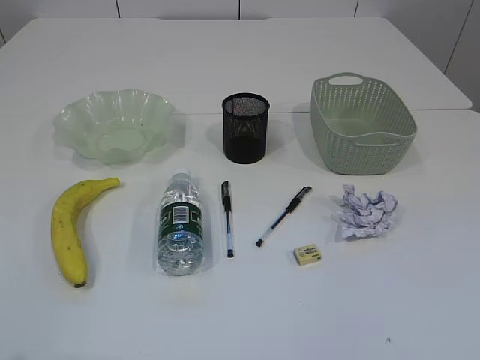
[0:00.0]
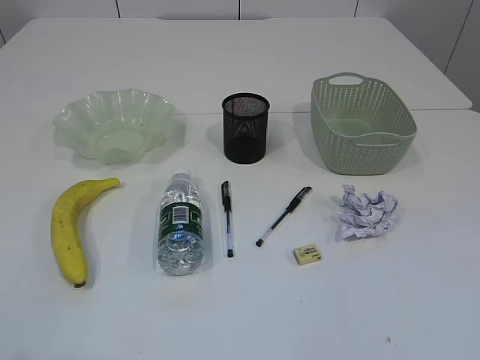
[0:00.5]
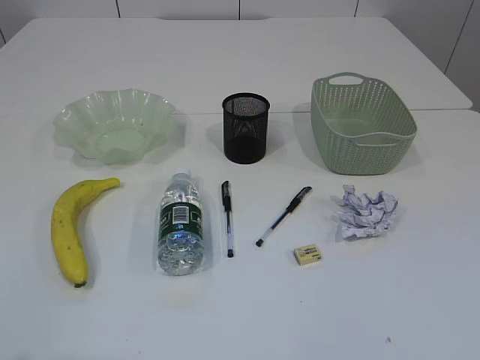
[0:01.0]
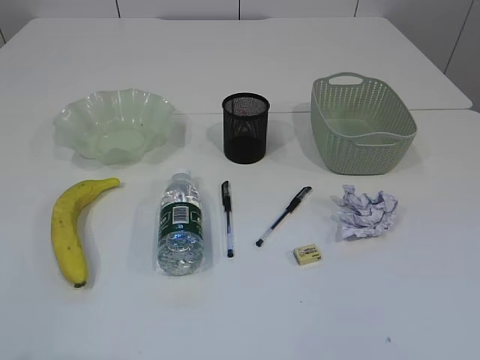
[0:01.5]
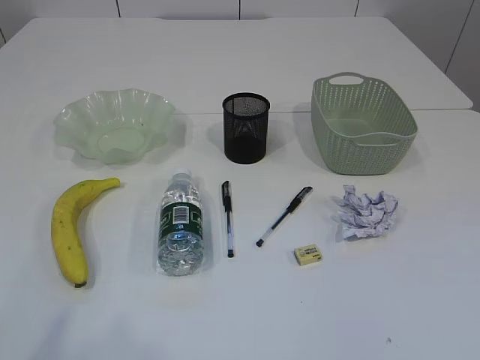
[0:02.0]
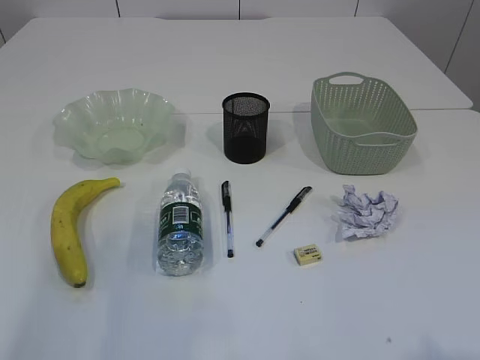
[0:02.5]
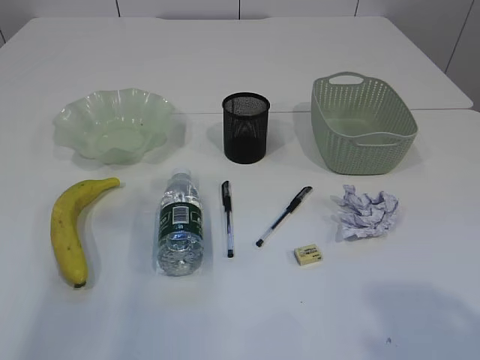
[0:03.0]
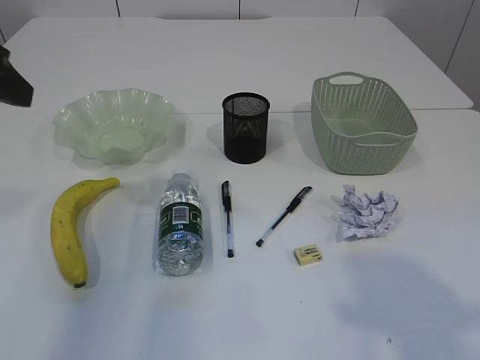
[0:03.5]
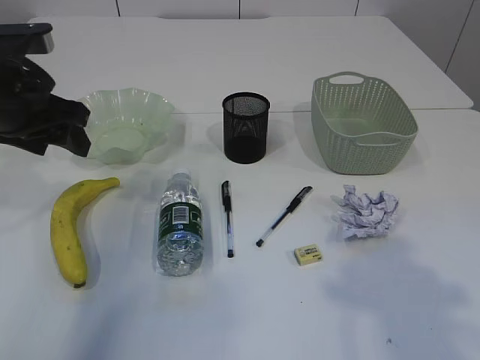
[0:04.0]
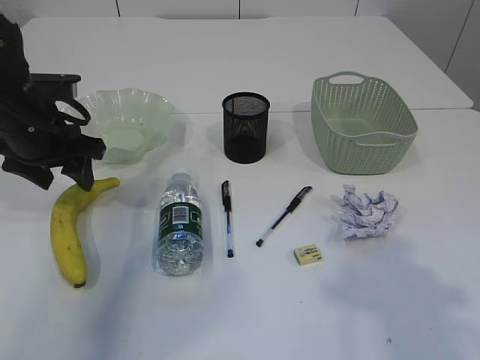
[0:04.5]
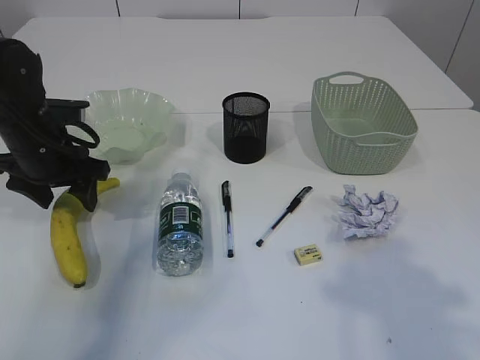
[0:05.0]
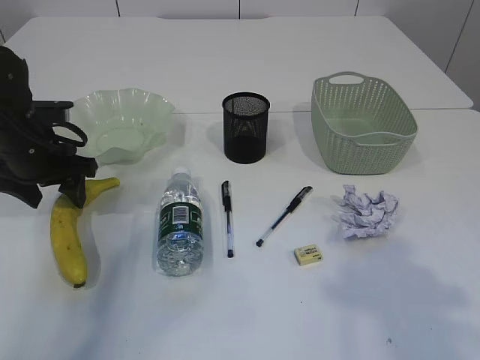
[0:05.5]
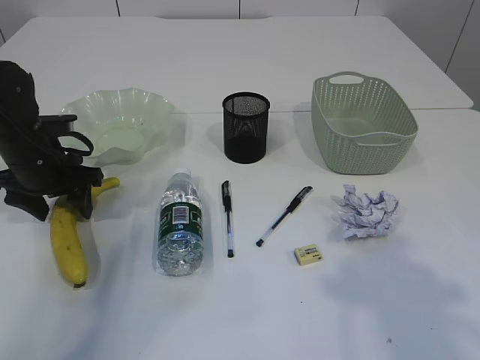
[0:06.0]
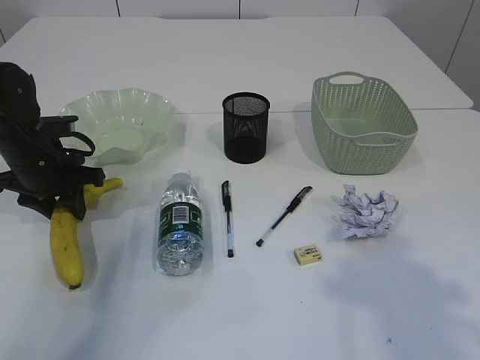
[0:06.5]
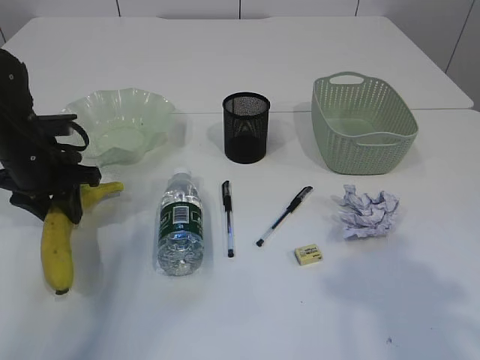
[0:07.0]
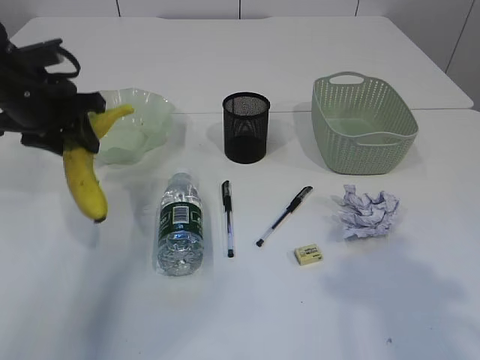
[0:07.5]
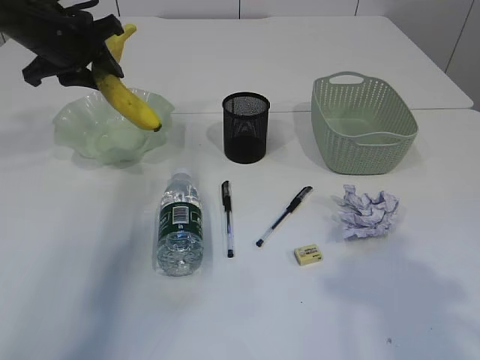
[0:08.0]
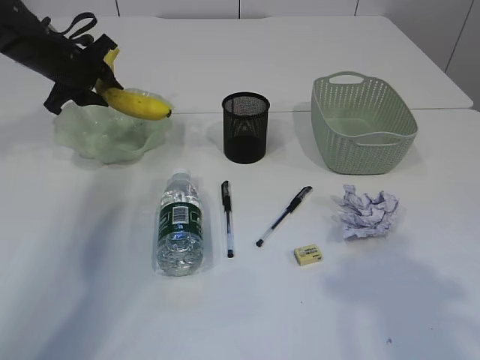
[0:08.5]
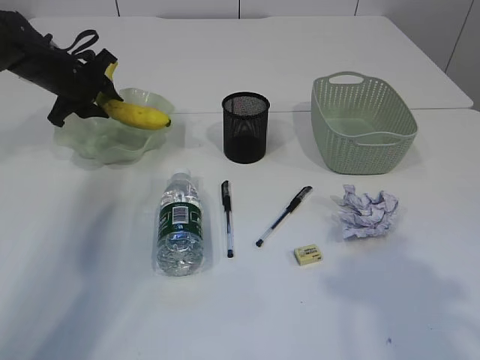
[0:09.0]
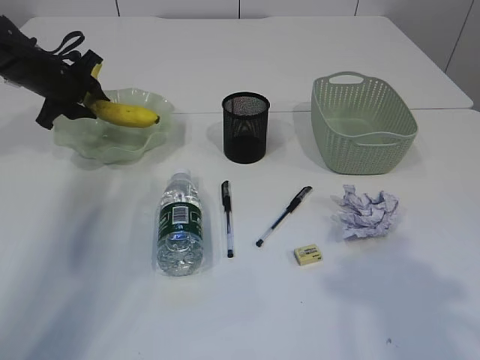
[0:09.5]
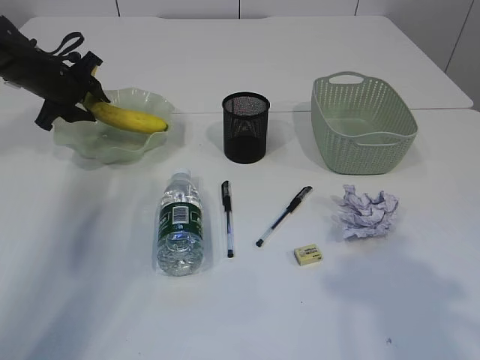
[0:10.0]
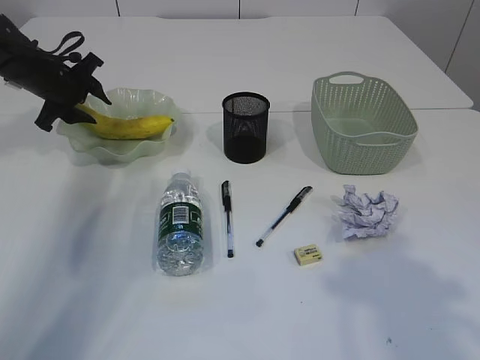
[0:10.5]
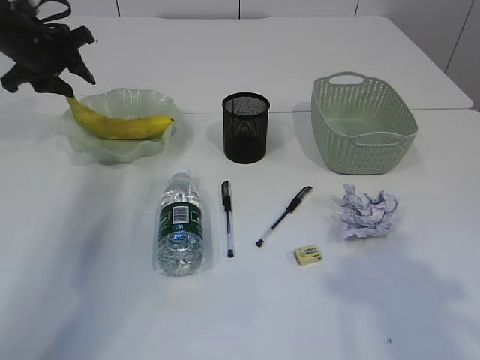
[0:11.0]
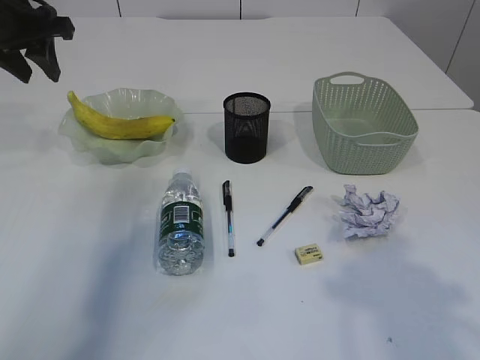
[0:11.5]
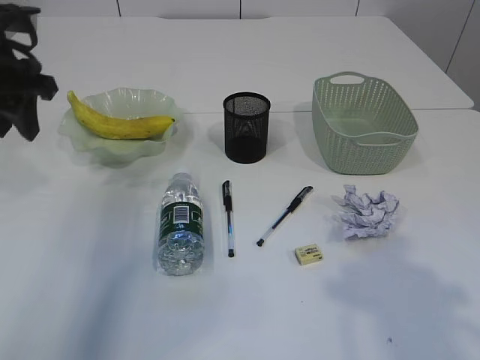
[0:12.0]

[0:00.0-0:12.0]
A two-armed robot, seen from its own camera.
Step, 0:07.5 to 0:11.0: Place the banana in the plate.
0:02.0 to 0:04.0: The right gripper travels forward and upward by roughly 15 cm; the left gripper is displaced forward by about 35 cm.
0:04.0 to 0:06.0: The left gripper heads downward and forward, covering roughly 15 cm.
0:06.0 to 0:08.0: The left gripper goes some 15 cm upward and forward, and closes.
0:08.0 to 0:10.0: The left gripper is displaced downward, forward and to the left by approximately 15 cm.
0:10.0 to 0:12.0: The left gripper heads backward and upward, covering approximately 20 cm.

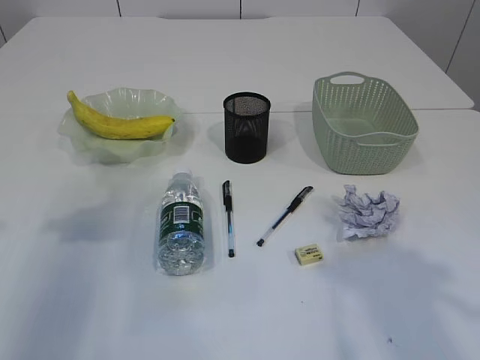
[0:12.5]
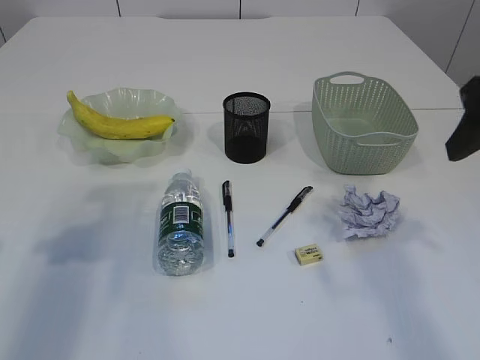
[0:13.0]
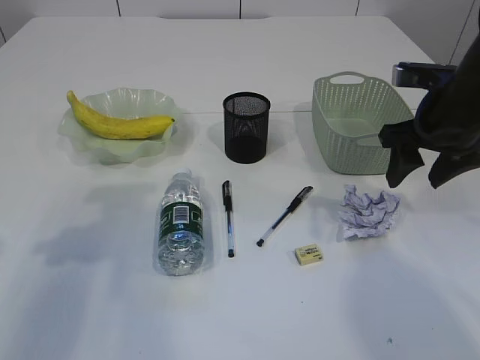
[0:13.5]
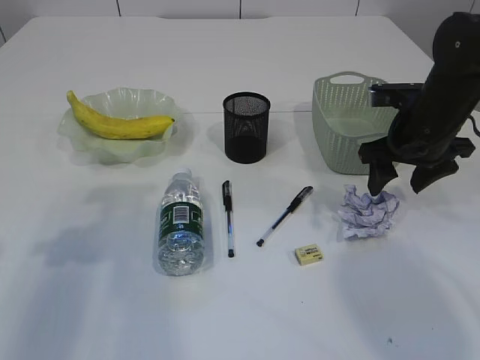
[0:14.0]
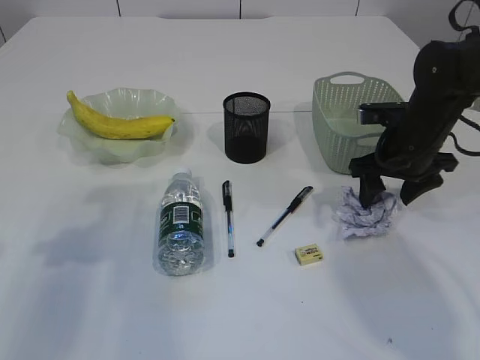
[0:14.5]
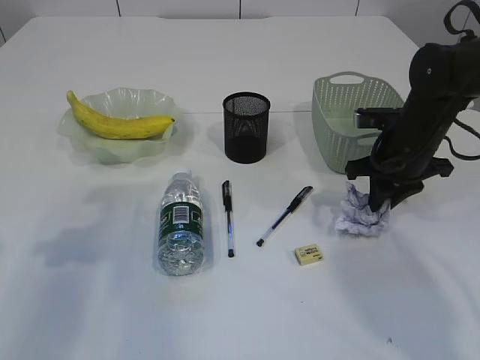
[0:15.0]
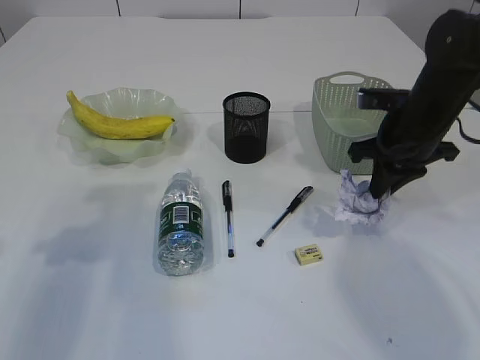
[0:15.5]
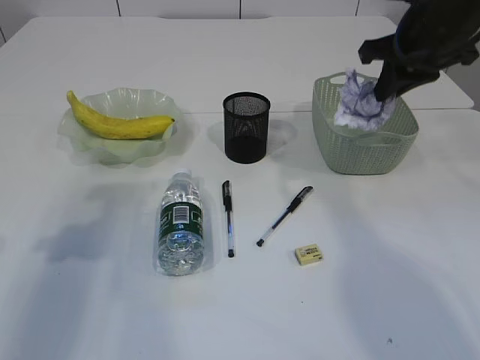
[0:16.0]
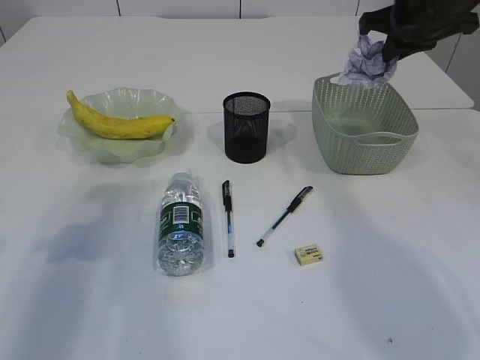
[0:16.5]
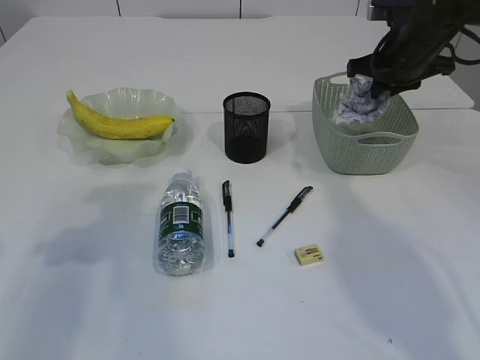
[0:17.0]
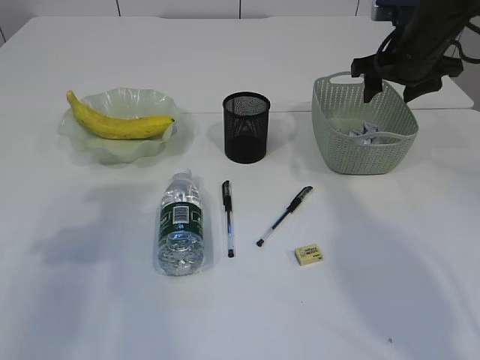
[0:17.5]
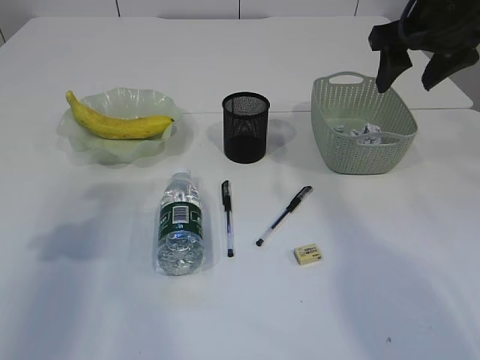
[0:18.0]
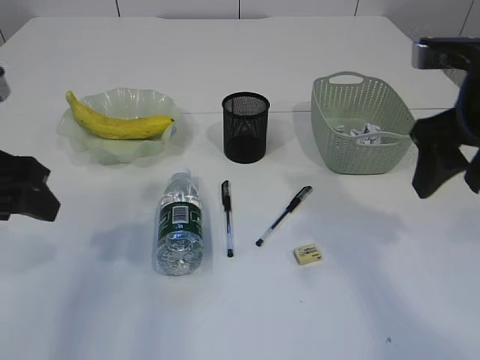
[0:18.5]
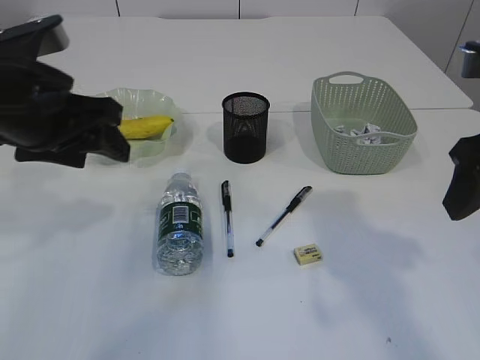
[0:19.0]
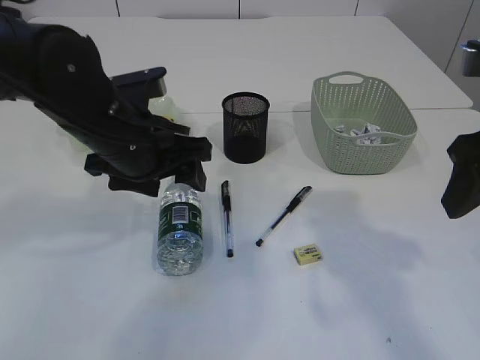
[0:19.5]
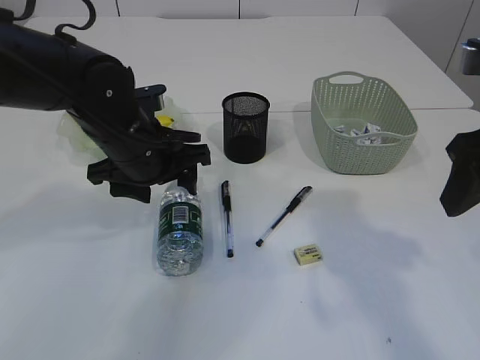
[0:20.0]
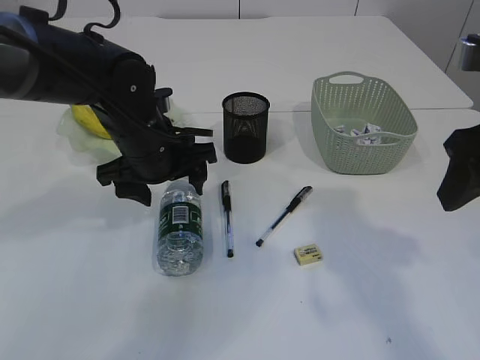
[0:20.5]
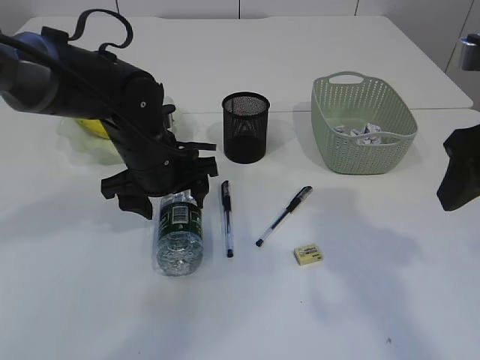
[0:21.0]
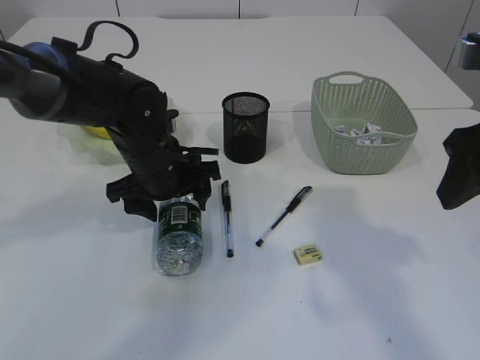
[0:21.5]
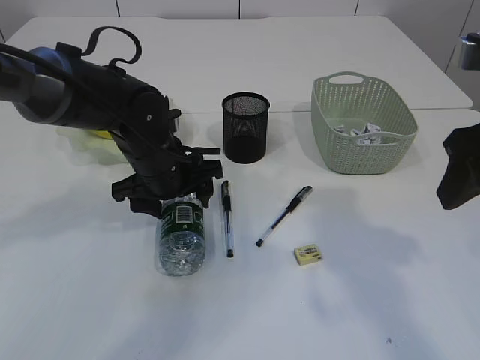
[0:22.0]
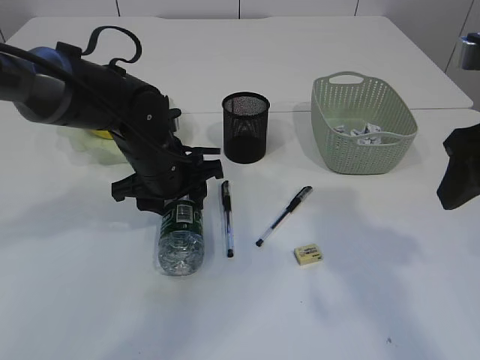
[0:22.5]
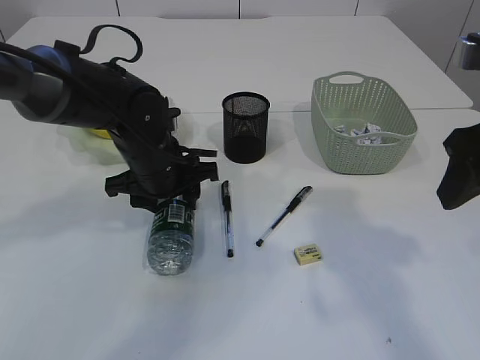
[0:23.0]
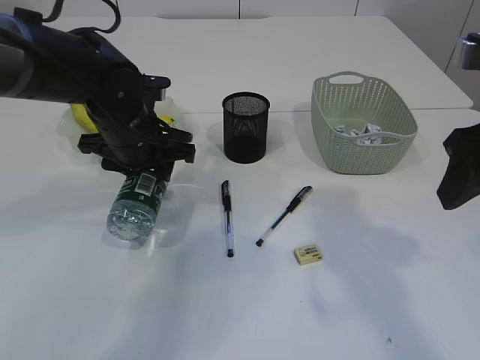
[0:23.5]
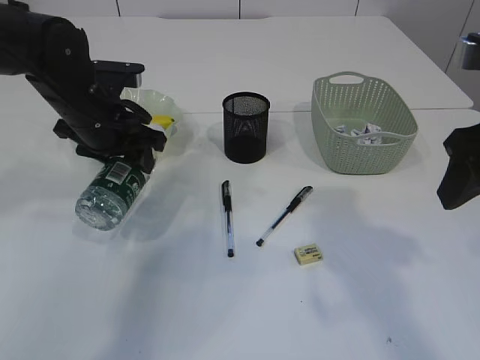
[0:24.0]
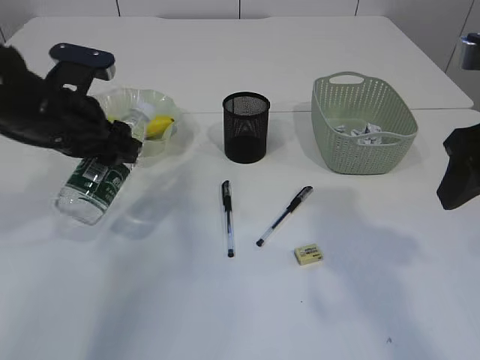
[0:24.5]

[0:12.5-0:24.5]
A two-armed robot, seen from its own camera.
Step, 0:12.5 to 0:15.5: Pick up the waste paper.
Step, 0:16.0 to 0:17.5: Place the waste paper in the basket.
Step, 0:18.0 to 0:23.5: Pick up the bottle with the left arm.
0:12.5 to 0:14.5: The right gripper heads forward and downward, covering about 30 cm.
0:14.5 to 0:16.5: The right gripper goes roughly 15 cm upward, and closes its fingers.
0:16.5 to 0:18.5: The right gripper goes approximately 15 cm backward, and opens up, while the left gripper shifts approximately 5 cm to the right.
0:18.5 to 0:20.5: The right gripper shifts by some 5 cm, while the left gripper goes about 20 cm to the right, forward and downward, and opens up.
0:20.5 to 0:22.5: The left gripper closes up.
0:22.5 to 0:24.5: The left gripper moves to the left and upward, roughly 10 cm.

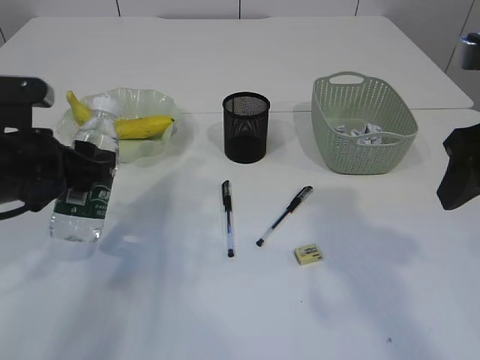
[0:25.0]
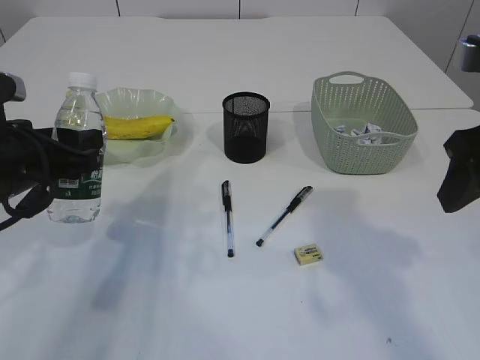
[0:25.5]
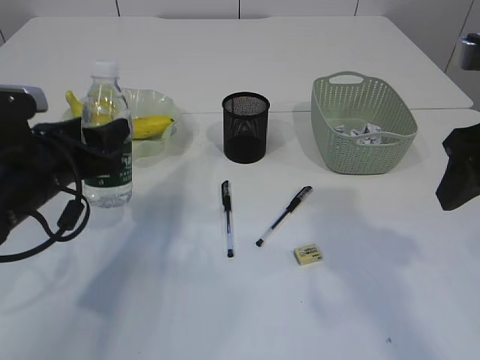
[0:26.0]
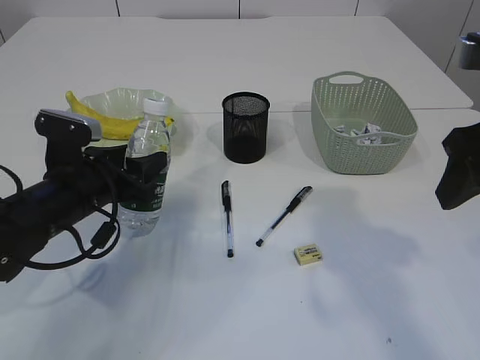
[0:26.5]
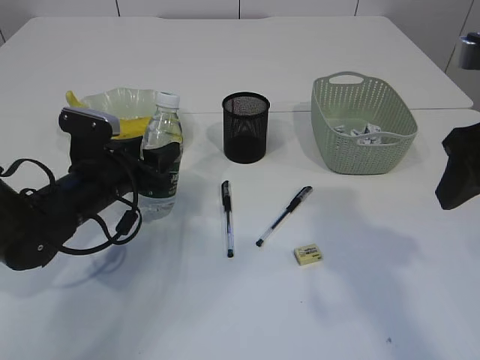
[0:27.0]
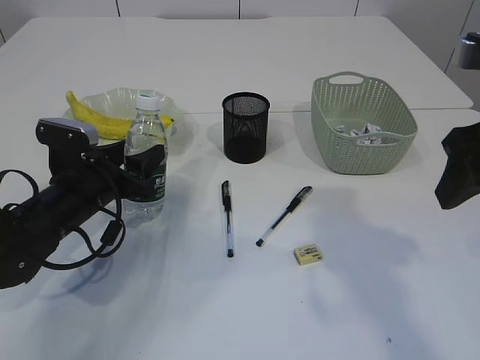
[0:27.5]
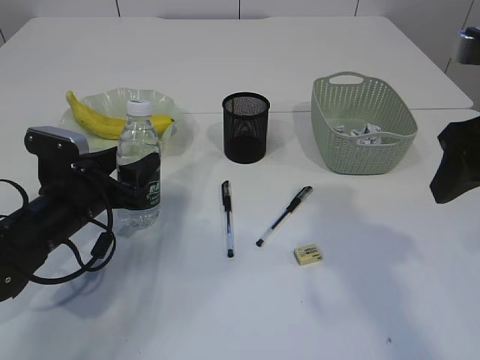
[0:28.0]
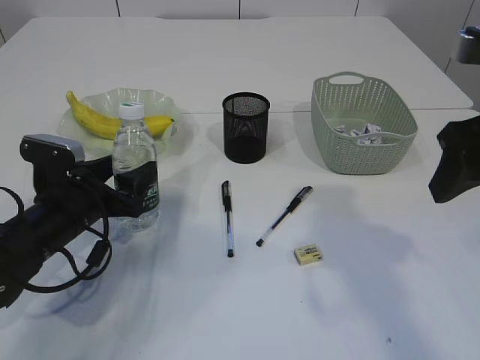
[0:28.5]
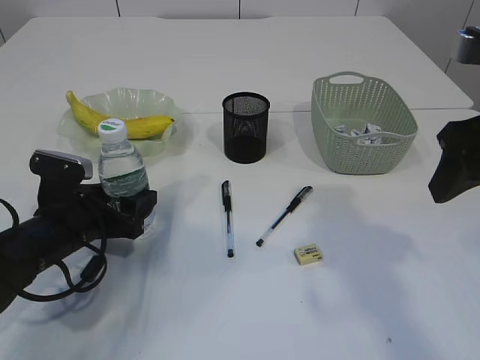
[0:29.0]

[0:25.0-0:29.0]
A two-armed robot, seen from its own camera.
0:25.0 to 0:27.0: The left gripper is displaced downward and forward by approximately 10 cm.
0:27.0 to 0:29.0: The left gripper moves about 5 cm, and opens its fingers.
